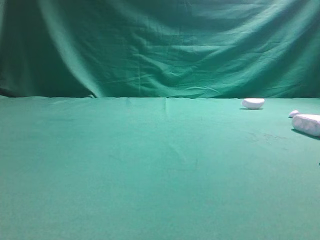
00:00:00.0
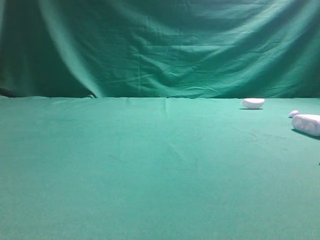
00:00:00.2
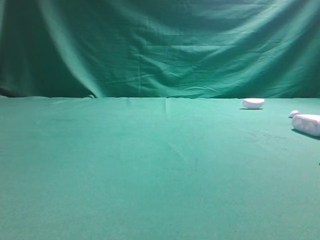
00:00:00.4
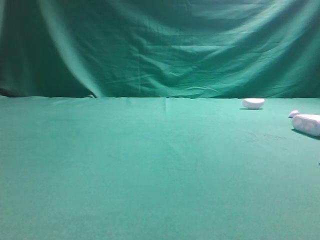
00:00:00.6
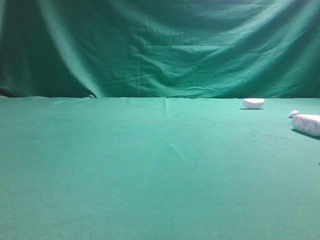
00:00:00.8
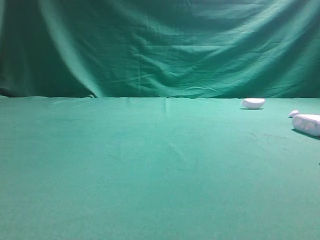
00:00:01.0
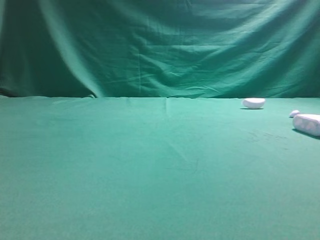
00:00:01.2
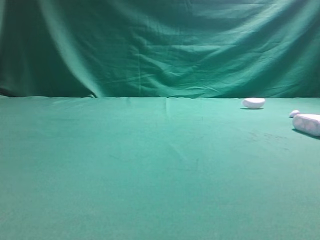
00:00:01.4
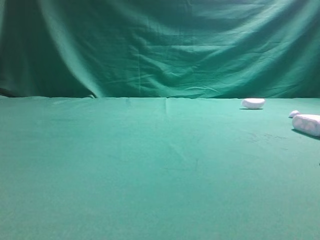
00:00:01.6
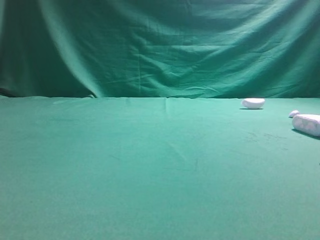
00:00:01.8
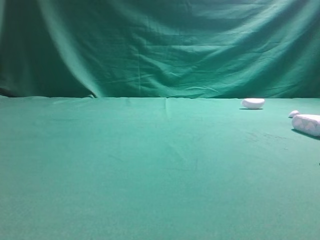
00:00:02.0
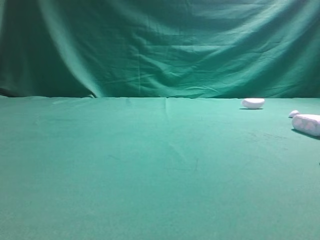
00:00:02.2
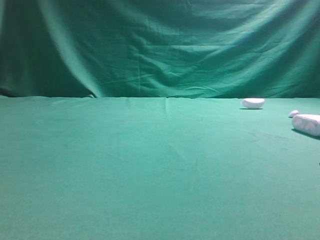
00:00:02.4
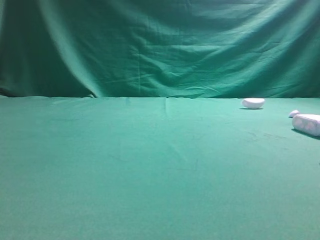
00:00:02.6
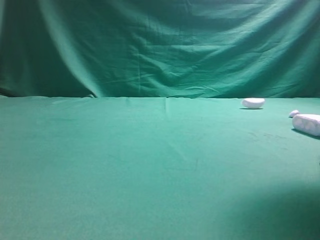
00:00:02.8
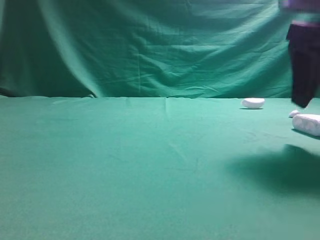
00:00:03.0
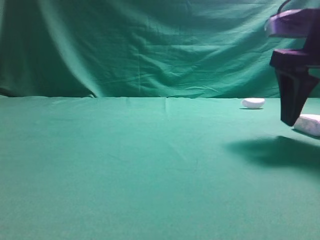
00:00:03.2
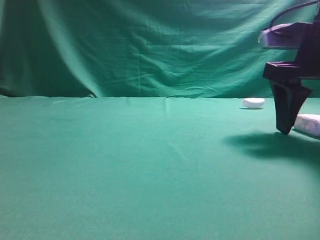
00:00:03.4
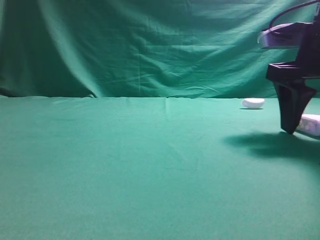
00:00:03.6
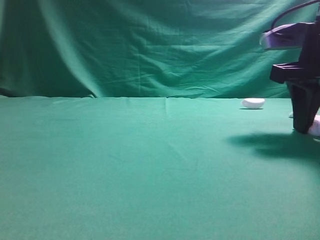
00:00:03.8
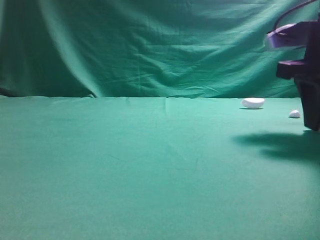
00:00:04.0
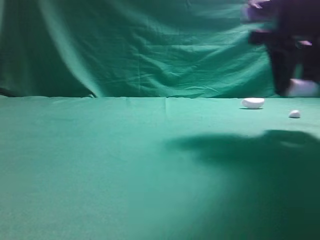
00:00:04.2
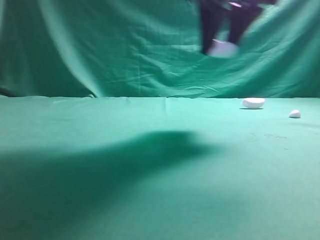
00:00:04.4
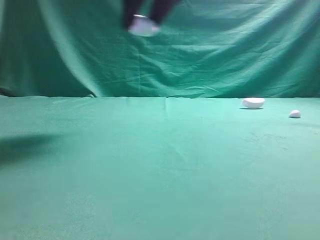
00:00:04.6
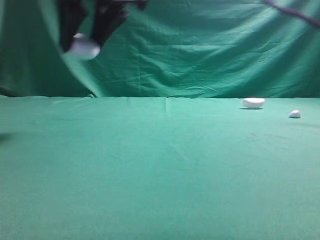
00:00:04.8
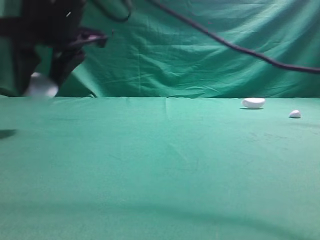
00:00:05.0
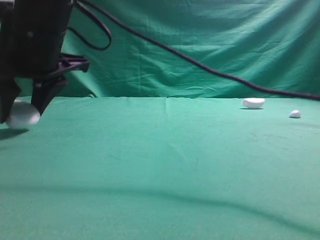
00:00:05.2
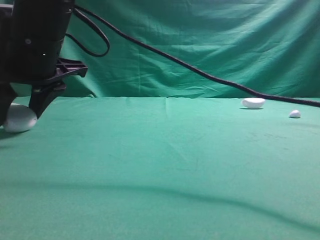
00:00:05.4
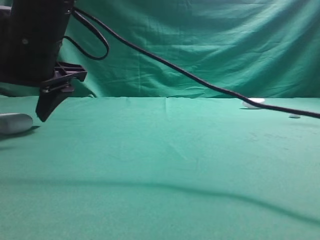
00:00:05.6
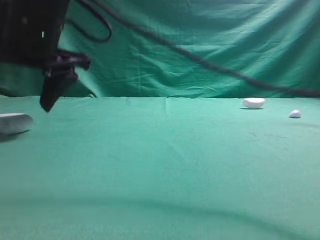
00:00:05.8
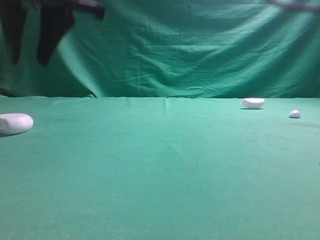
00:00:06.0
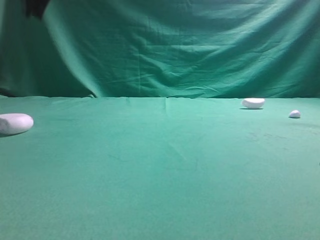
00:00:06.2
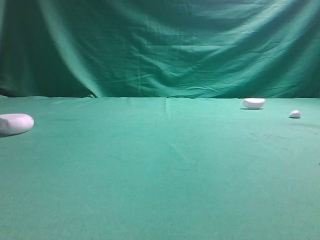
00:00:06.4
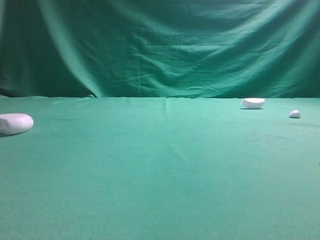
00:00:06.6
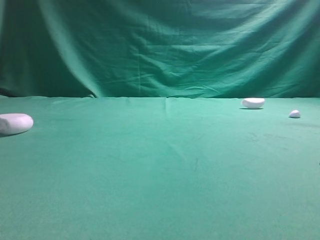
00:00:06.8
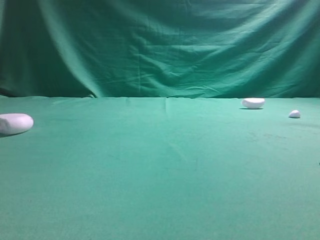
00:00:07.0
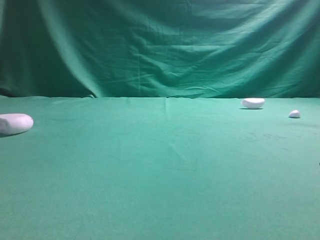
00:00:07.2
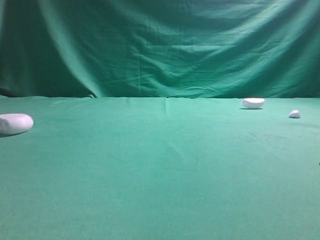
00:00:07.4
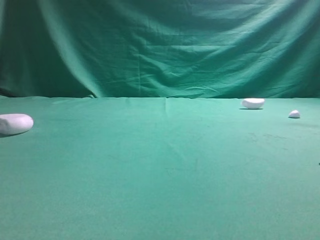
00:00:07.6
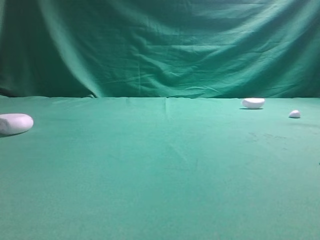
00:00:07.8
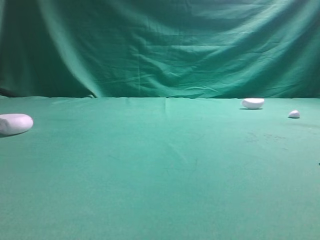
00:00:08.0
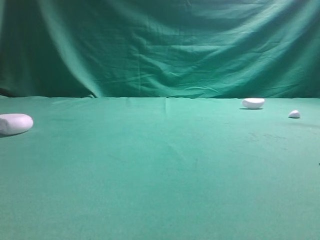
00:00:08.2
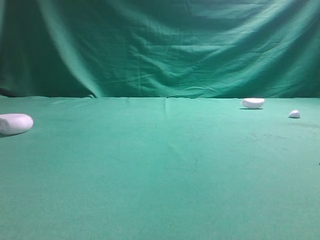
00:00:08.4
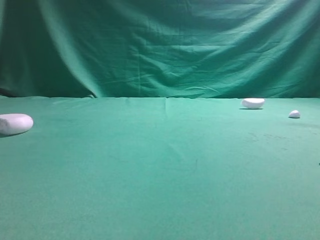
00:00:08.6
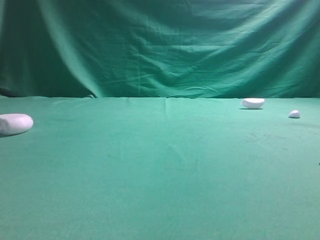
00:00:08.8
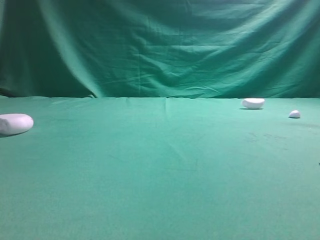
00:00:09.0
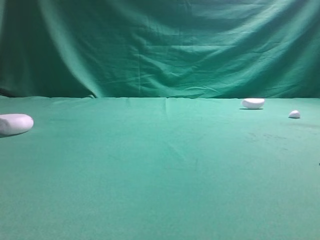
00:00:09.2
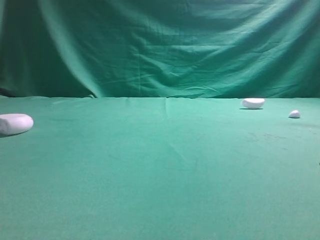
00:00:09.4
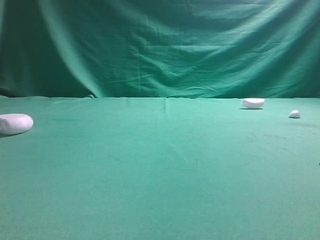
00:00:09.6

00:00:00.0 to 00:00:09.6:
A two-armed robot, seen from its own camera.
Step, 00:00:00.0 to 00:00:03.4: Grasp the Bluetooth earphone case.
Step, 00:00:03.6 to 00:00:05.8: Place bluetooth earphone case on the left side of the table.

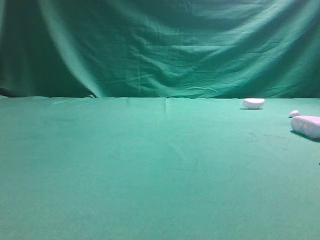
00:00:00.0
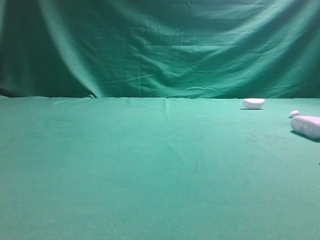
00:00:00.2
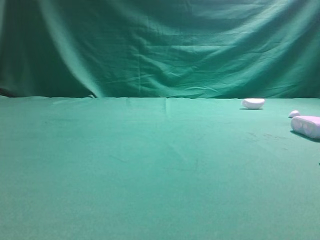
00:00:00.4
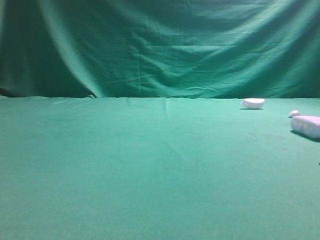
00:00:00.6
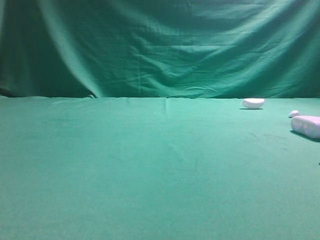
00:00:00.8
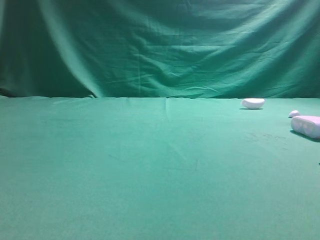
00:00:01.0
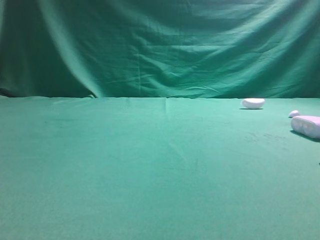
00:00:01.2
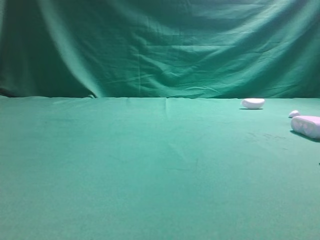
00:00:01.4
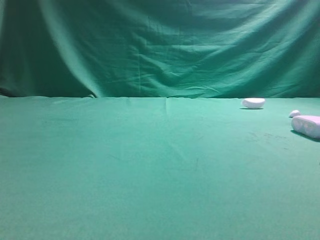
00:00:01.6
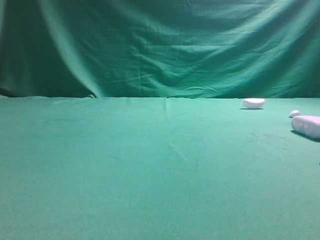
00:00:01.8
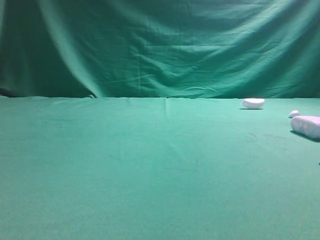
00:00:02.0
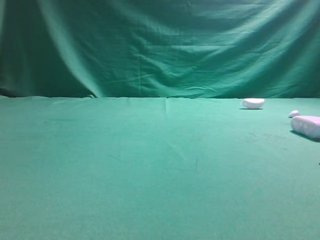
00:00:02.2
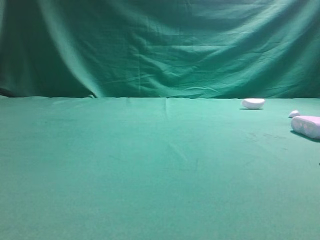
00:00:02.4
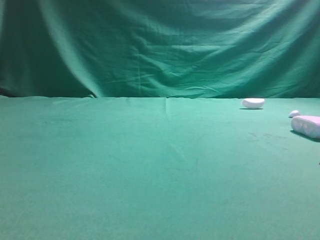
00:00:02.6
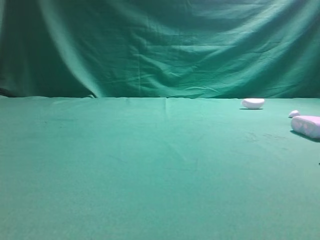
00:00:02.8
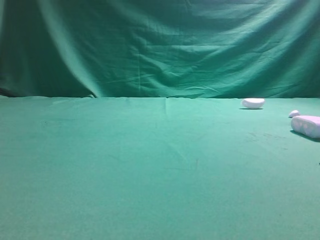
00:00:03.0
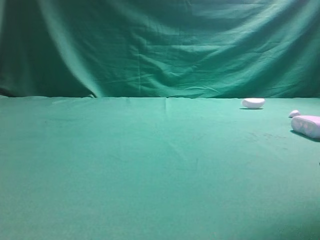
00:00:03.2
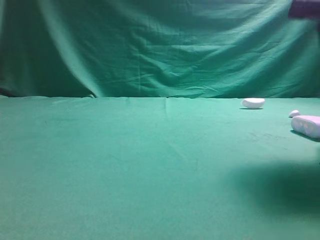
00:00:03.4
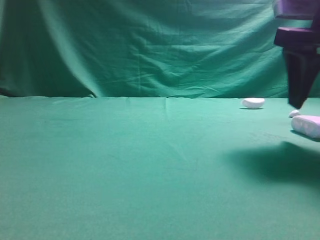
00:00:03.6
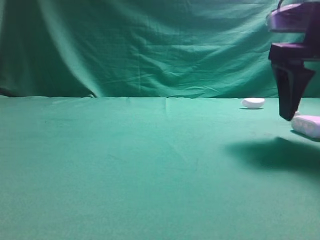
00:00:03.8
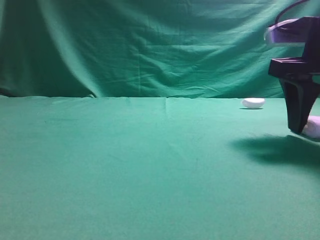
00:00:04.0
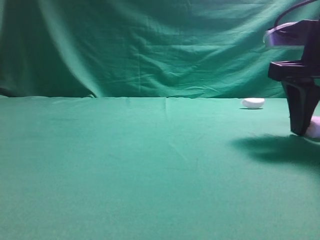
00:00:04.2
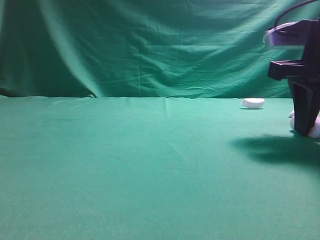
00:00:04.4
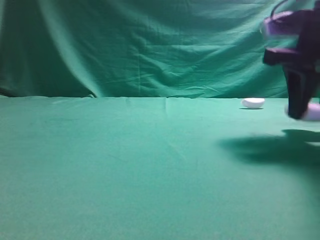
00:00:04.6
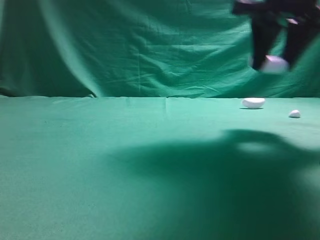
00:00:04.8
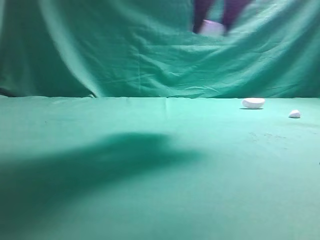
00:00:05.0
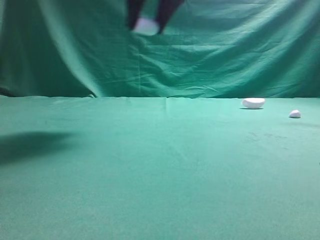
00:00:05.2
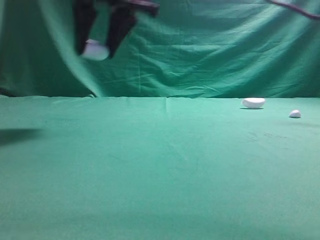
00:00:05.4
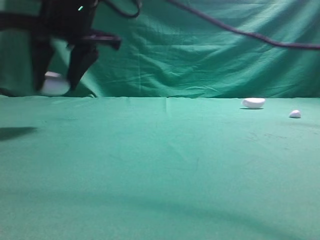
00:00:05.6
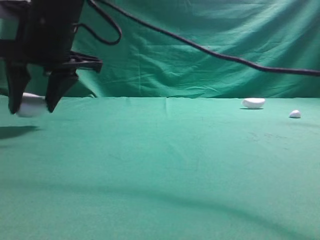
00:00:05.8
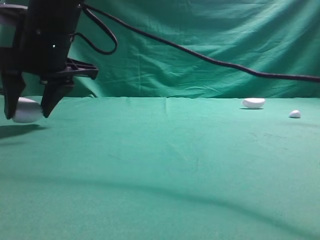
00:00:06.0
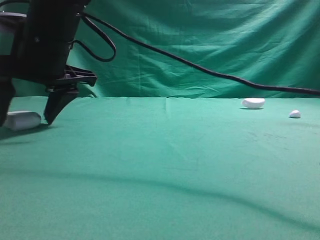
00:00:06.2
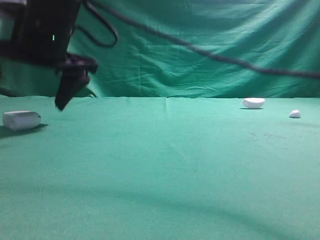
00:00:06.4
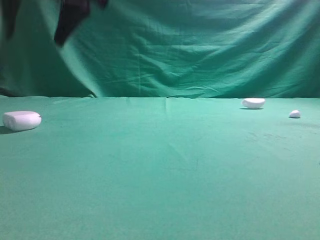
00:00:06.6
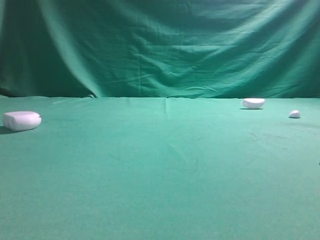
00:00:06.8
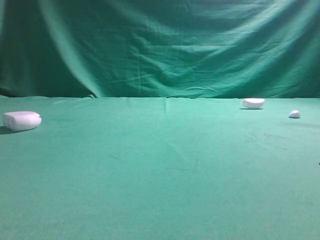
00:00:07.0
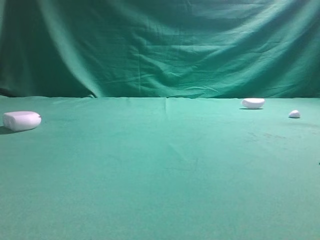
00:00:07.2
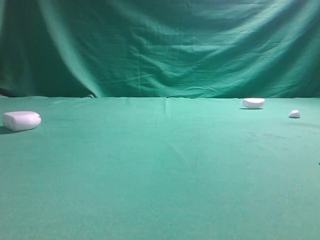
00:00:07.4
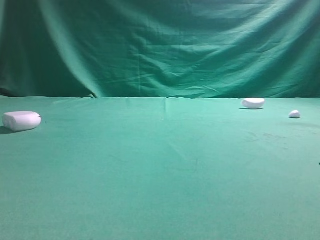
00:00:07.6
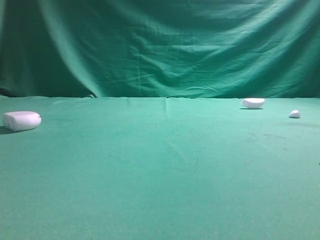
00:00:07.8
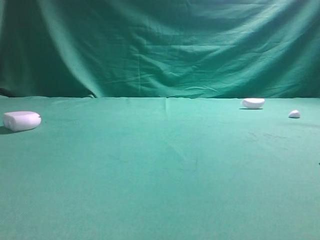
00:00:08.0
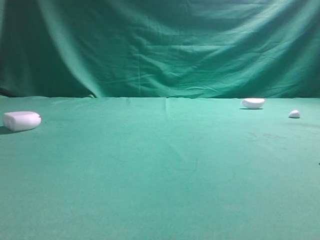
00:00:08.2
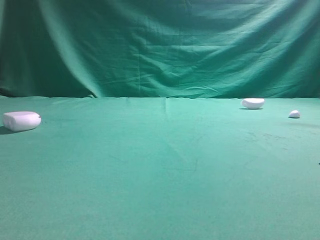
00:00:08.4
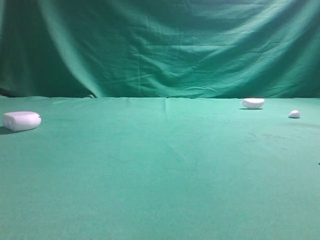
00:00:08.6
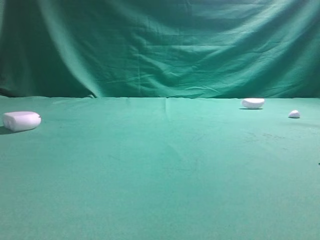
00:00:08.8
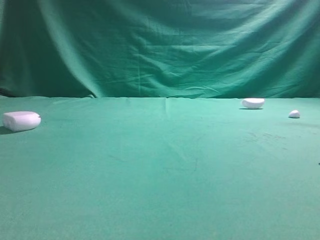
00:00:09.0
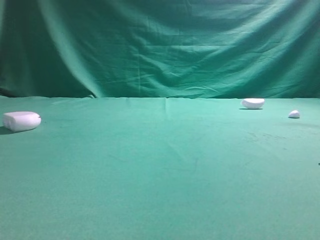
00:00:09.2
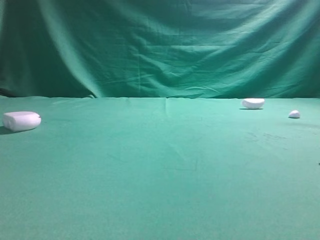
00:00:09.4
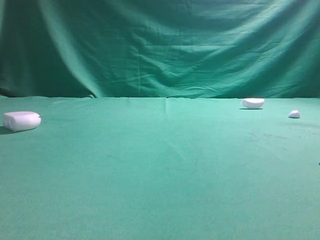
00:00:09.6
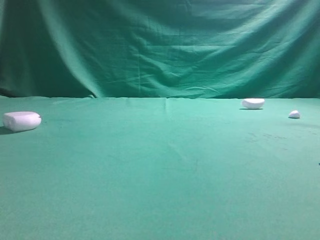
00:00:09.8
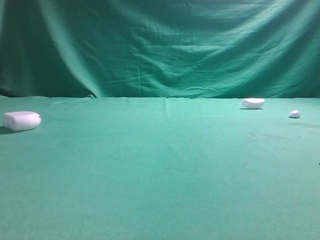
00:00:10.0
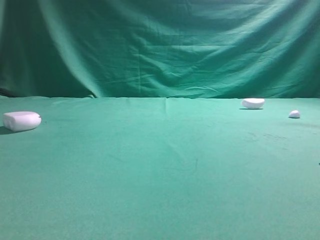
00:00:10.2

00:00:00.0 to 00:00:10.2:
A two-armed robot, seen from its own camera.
Step, 00:00:00.0 to 00:00:04.8: Grasp the Bluetooth earphone case.
Step, 00:00:05.0 to 00:00:06.4: Place bluetooth earphone case on the left side of the table.
